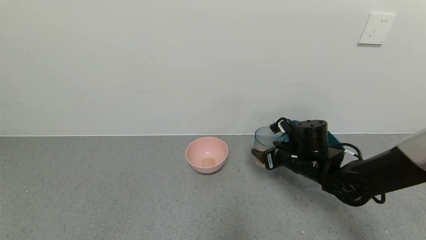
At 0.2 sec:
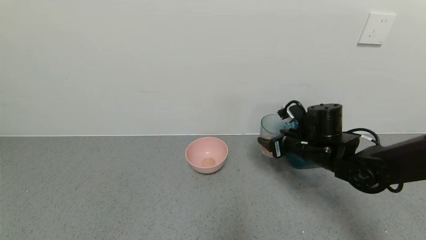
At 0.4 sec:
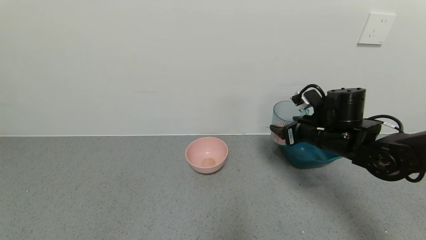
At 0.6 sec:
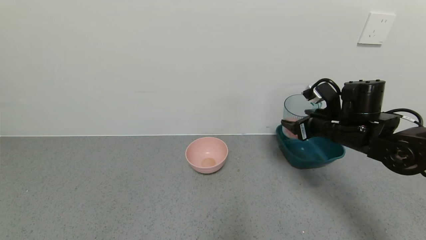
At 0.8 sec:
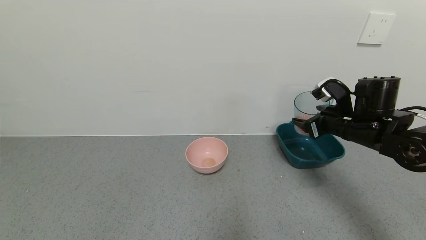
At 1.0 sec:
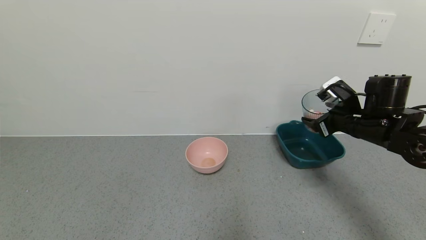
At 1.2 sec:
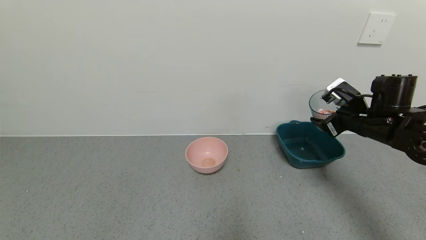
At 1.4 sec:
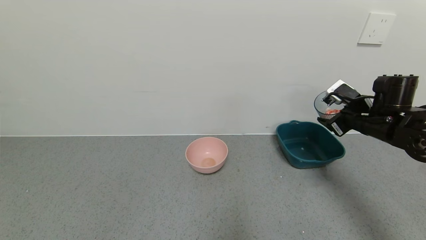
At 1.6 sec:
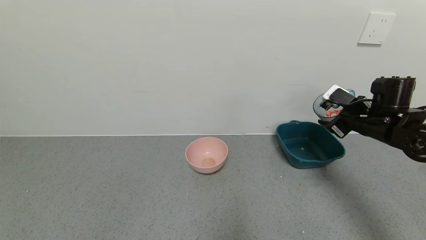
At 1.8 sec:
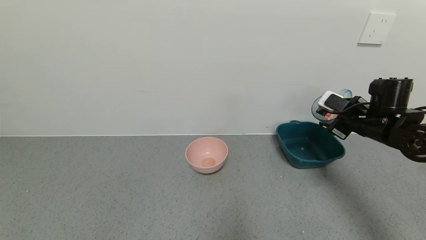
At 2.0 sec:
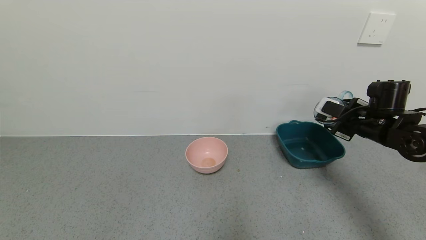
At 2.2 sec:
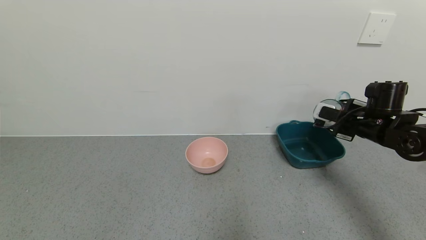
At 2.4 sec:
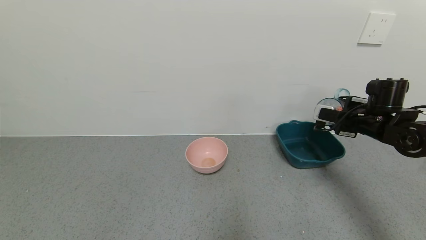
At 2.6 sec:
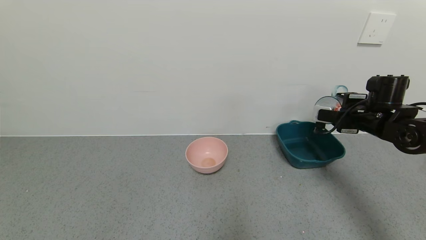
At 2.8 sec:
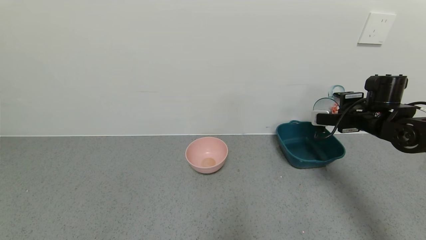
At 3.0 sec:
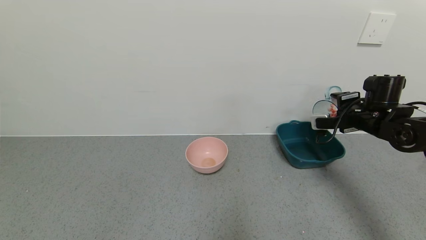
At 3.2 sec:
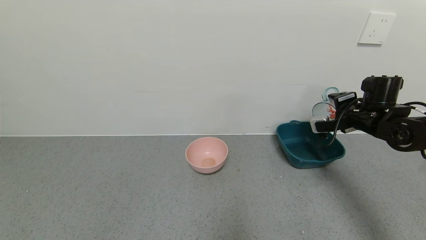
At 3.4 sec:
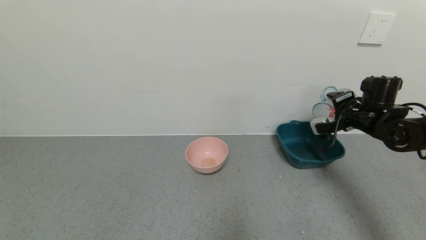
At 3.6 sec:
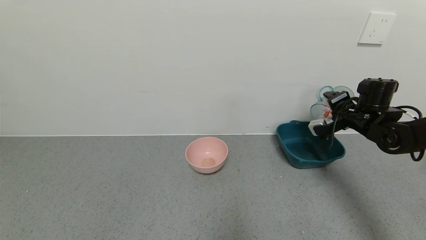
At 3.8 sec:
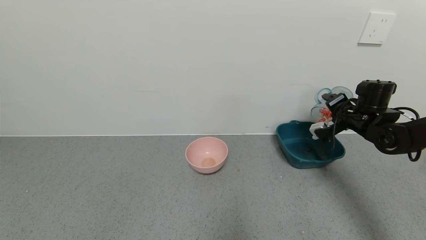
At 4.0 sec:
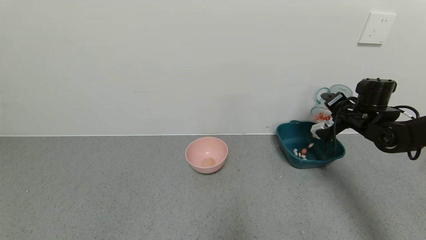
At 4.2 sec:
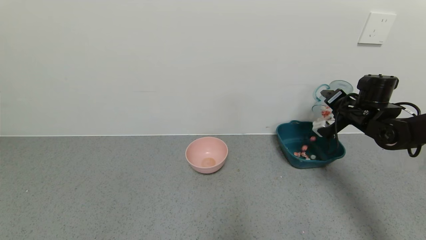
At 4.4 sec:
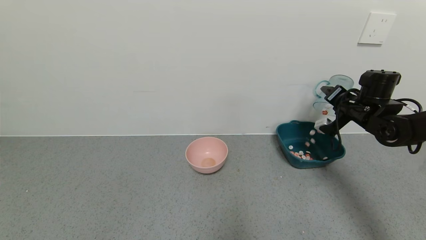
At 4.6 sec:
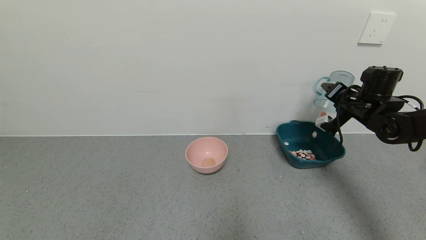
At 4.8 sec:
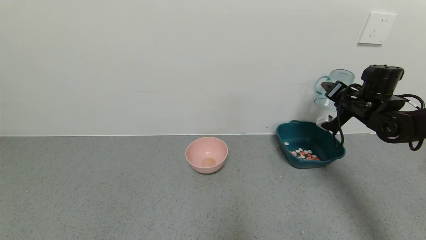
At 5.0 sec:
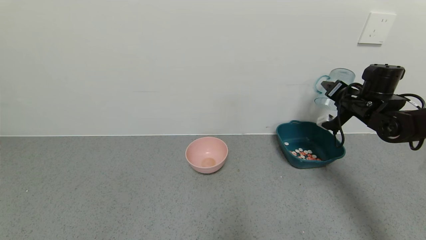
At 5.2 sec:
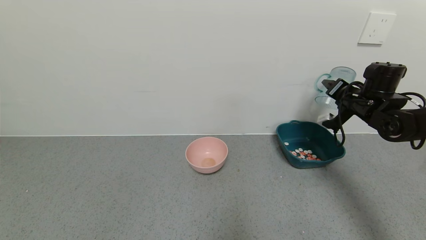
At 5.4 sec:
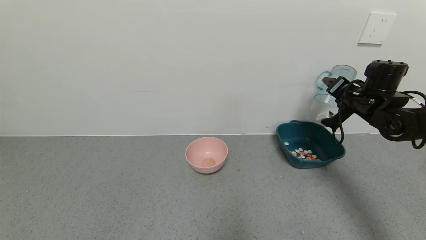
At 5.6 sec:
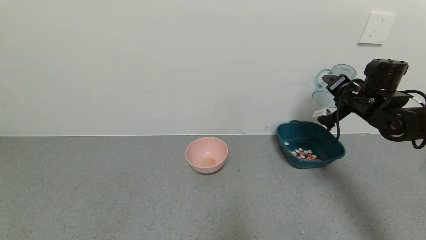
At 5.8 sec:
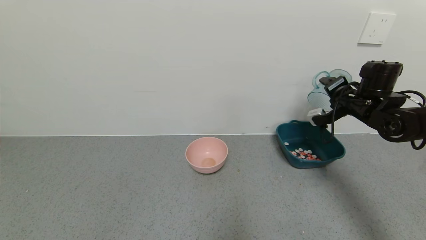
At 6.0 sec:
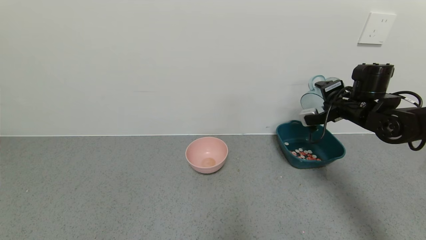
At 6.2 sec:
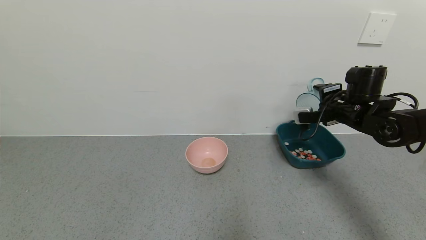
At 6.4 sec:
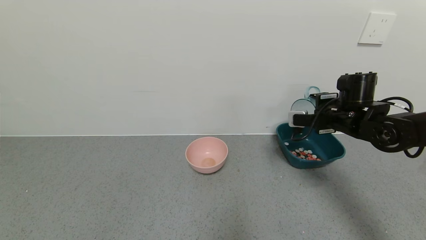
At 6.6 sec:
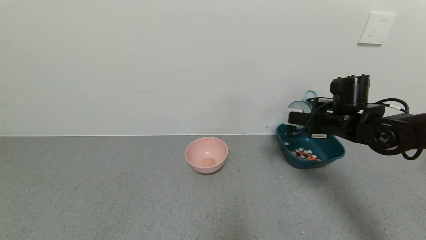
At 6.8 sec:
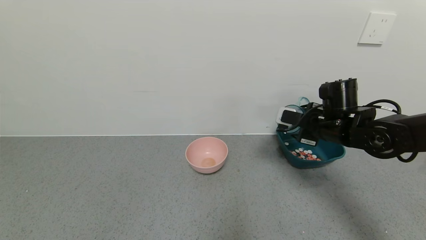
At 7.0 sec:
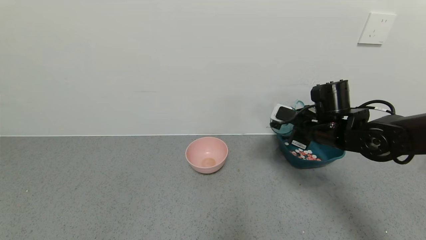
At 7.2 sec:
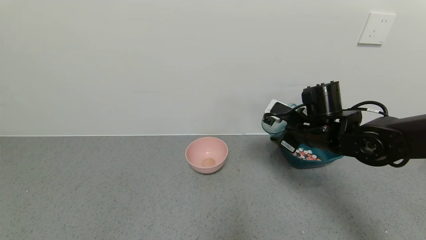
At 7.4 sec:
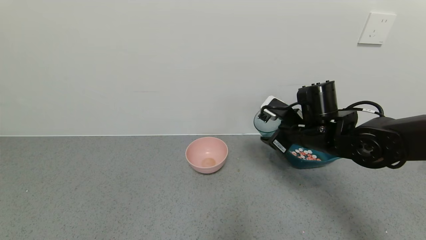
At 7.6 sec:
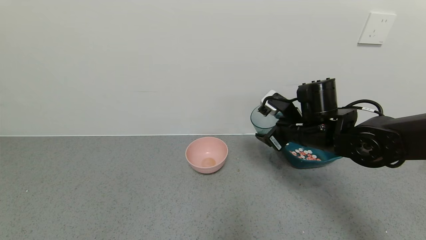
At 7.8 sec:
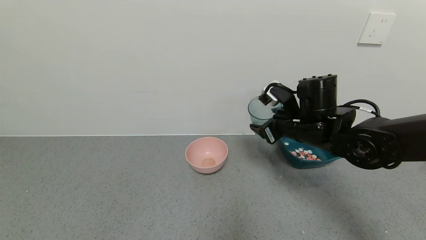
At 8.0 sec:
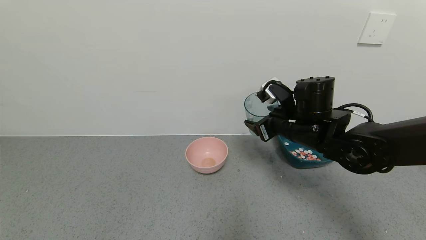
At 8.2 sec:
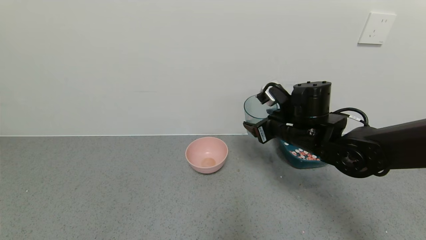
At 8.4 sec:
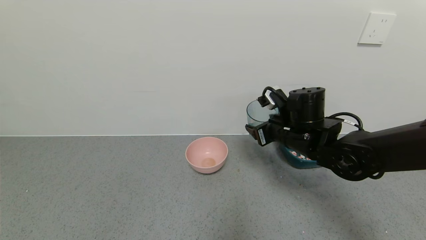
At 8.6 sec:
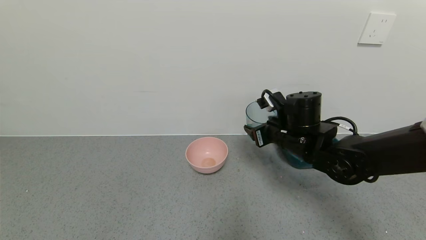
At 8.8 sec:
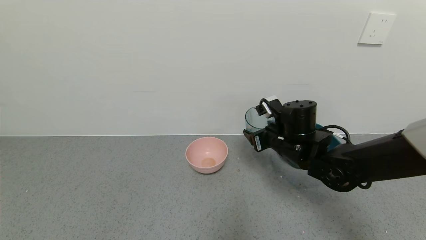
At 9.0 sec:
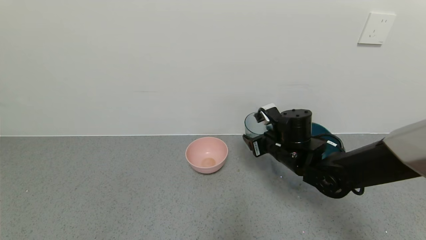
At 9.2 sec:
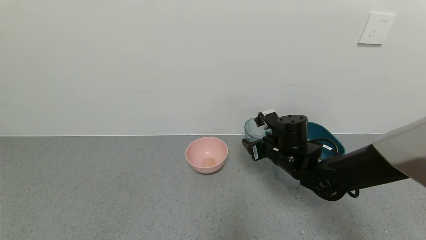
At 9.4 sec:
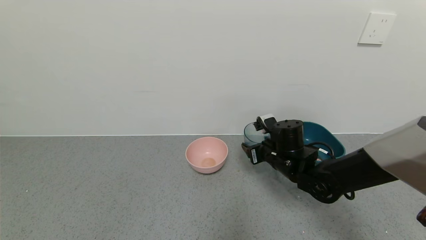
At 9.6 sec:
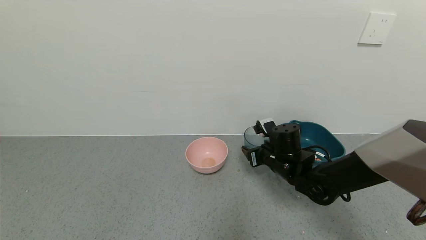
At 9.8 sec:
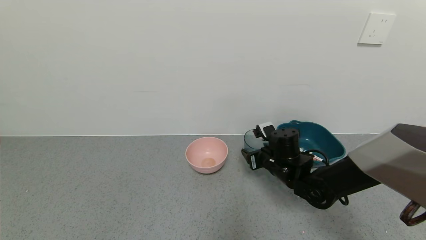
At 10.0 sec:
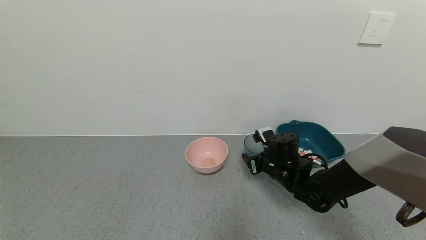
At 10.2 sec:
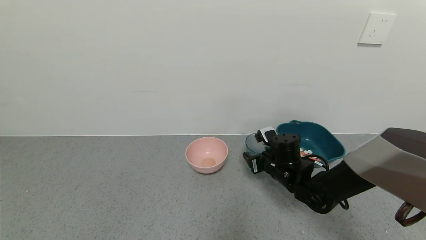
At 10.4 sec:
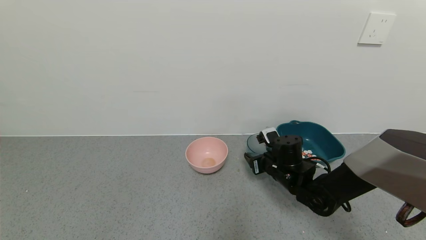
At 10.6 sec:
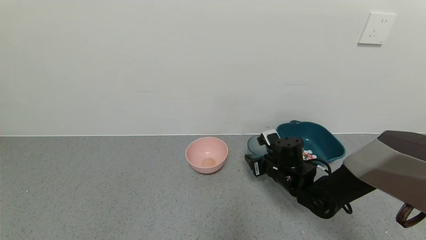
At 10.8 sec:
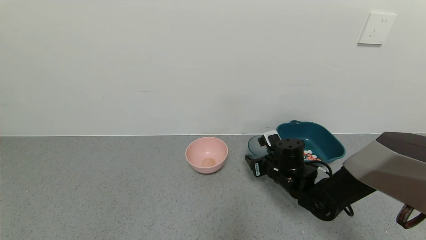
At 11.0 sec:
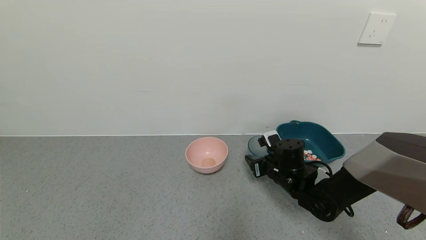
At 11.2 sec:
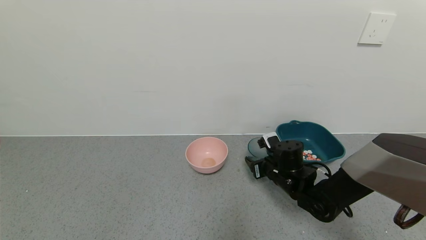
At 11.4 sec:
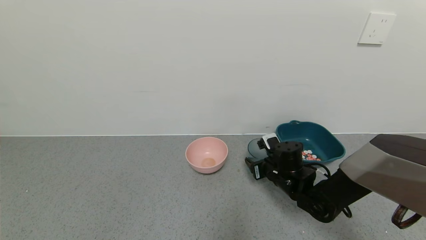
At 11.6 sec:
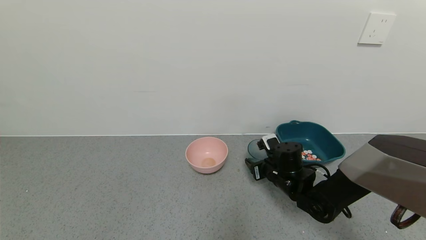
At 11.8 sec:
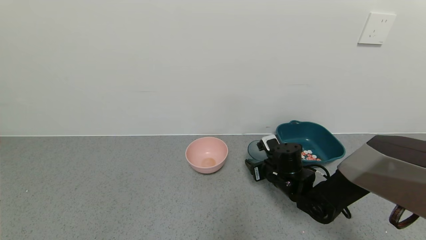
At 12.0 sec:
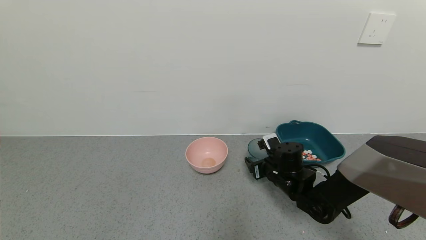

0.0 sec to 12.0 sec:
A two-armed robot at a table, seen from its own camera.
Task of the whole recording: use a gripper to pick up the cup and pour the solid into a bowl or tray.
Step, 0.0 sec to 5.8 sec: Pour the shrimp beans into the green bowl with the right gripper.
0.0 sec to 1.6 sec: The right gripper is displaced to the right and upward by approximately 15 cm.
6.0 sec to 7.6 sec: The right gripper goes roughly 15 cm to the left and backward.
7.6 sec to 9.0 sec: The right gripper goes about 5 cm downward.
9.0 sec to 10.4 sec: The right gripper shifts some 5 cm downward.
10.4 sec to 12.0 sec: The grippers make only small movements.

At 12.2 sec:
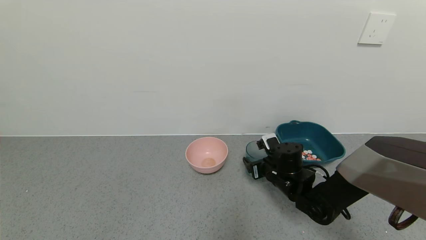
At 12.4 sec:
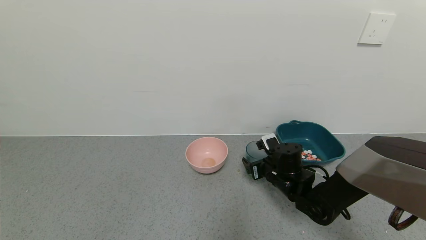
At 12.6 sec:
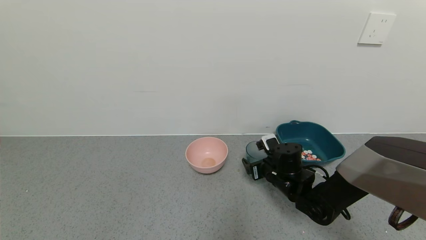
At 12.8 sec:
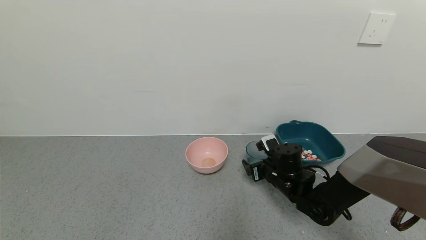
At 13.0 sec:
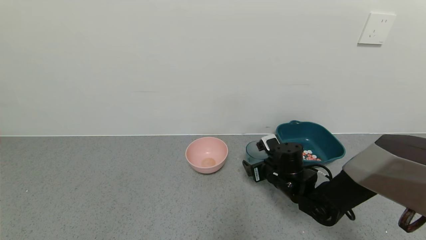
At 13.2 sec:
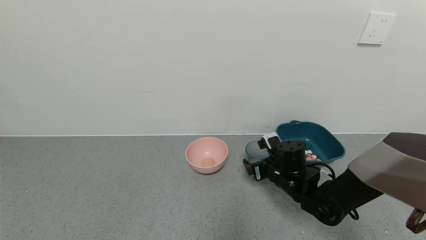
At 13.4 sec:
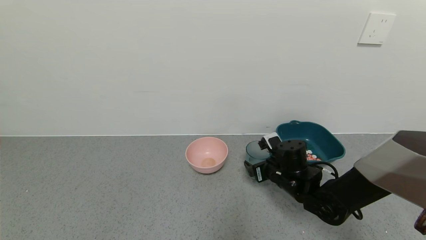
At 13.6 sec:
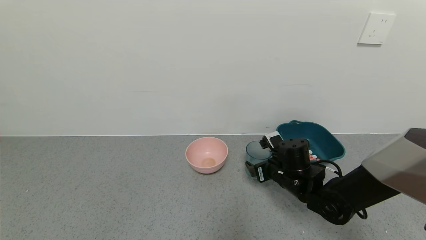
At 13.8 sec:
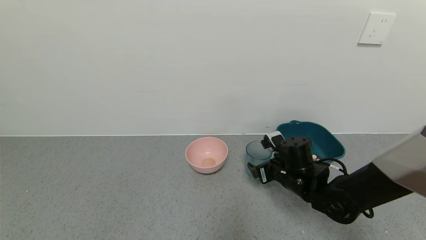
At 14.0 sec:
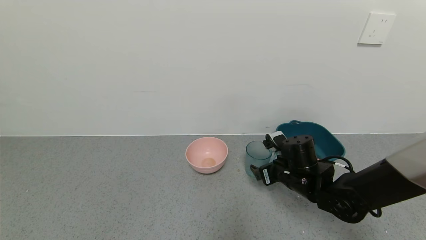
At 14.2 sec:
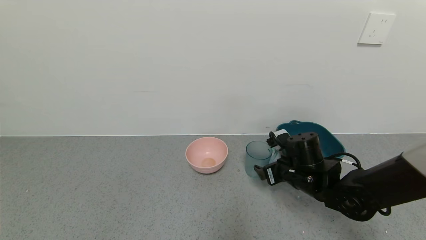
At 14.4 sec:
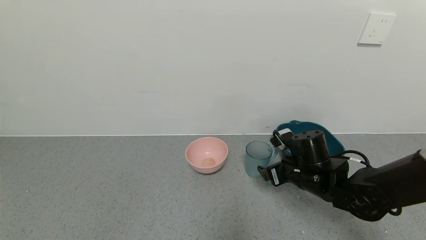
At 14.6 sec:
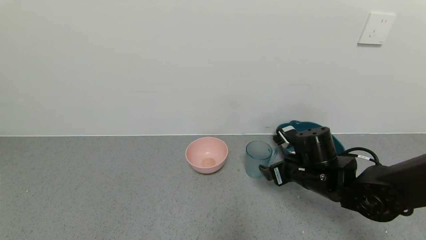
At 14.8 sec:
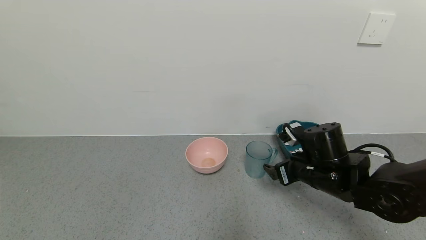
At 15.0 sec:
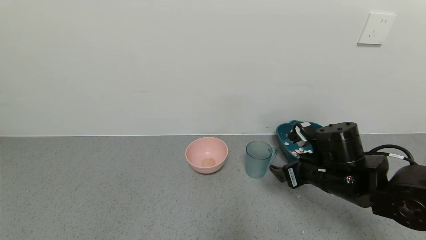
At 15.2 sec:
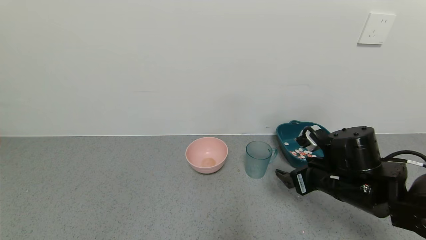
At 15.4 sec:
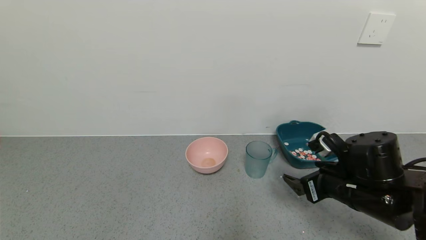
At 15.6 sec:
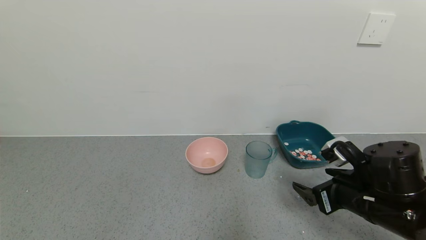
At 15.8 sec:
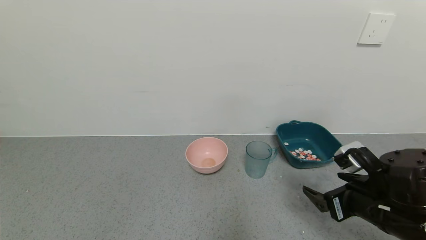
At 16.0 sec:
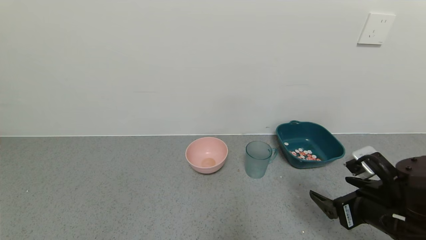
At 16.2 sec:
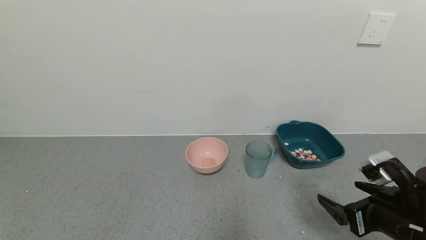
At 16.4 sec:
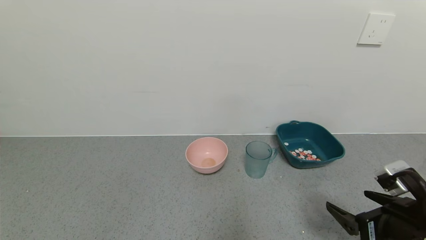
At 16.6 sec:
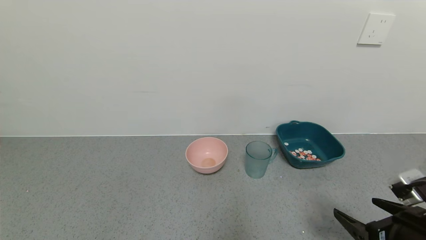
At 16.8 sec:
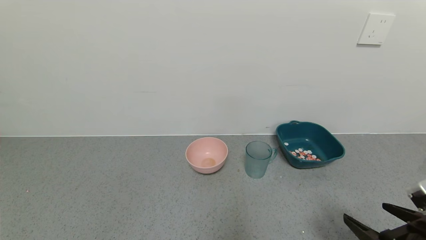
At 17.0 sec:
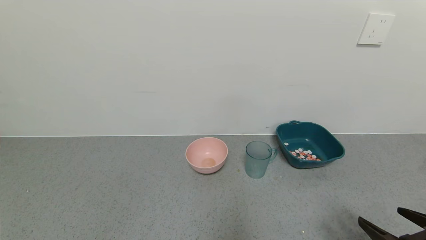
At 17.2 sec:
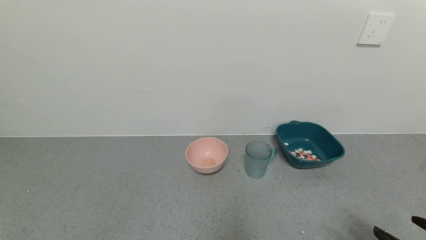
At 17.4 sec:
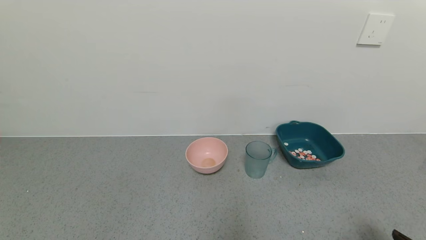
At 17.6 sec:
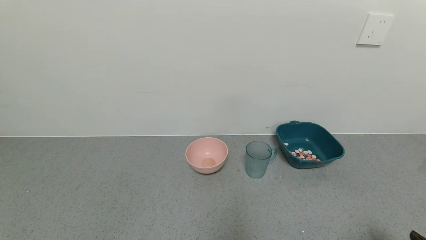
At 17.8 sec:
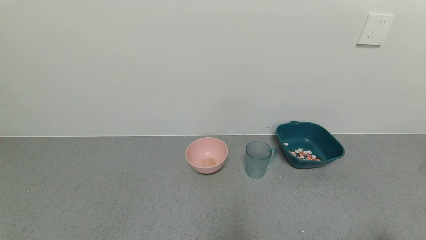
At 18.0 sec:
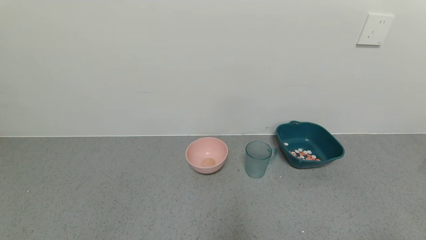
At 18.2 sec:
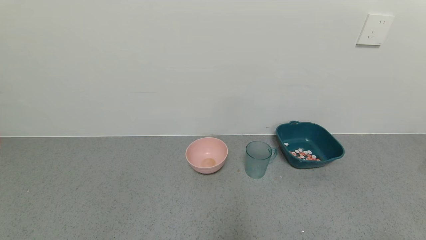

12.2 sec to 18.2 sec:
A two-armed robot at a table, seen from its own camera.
Task of the whole recording: use a gripper to pick up the cup and pour the solid into a bowl or tray.
12.2 sec to 13.8 sec: The right gripper opens its fingers.
13.8 sec to 15.2 sec: The right gripper heads backward, upward and to the right, covering about 10 cm.
15.2 sec to 16.6 sec: The right gripper travels backward and to the right by about 15 cm.
16.6 sec to 18.2 sec: The right gripper heads backward and to the right, covering approximately 15 cm.
